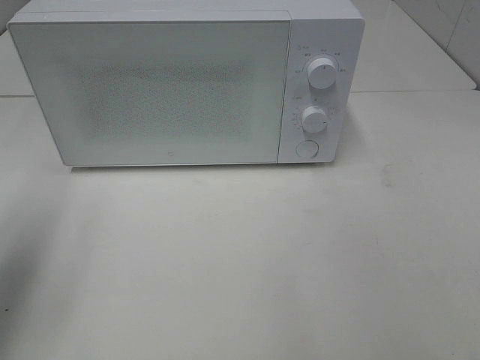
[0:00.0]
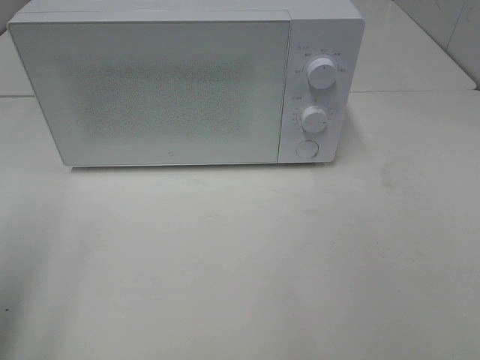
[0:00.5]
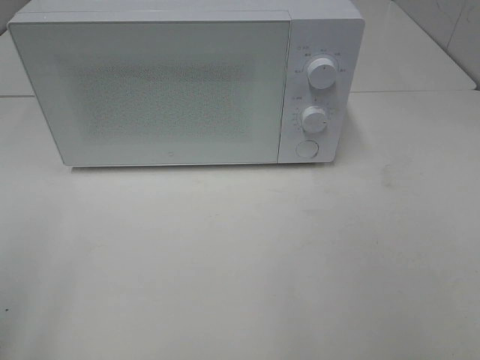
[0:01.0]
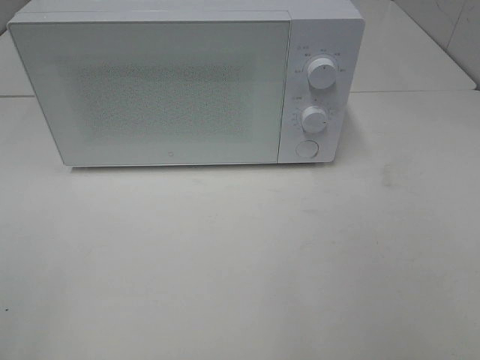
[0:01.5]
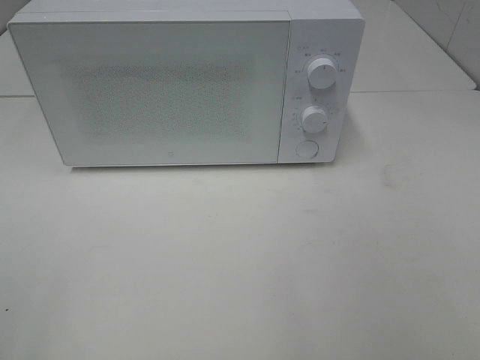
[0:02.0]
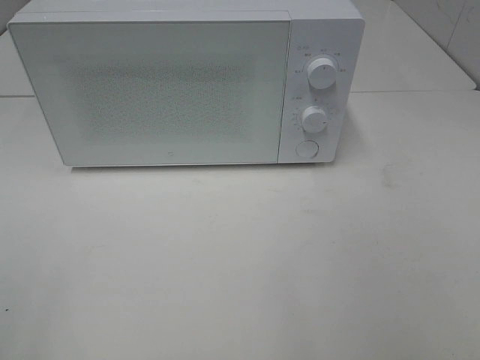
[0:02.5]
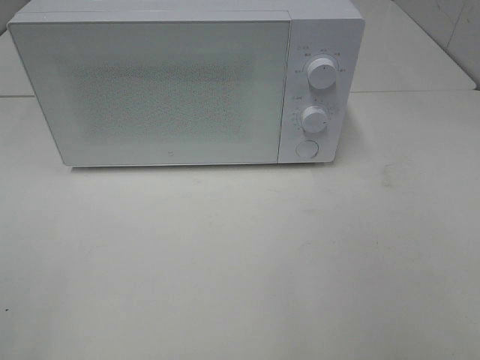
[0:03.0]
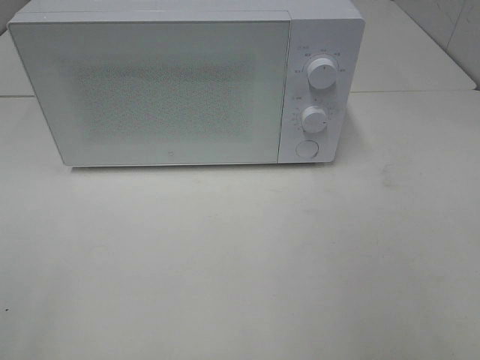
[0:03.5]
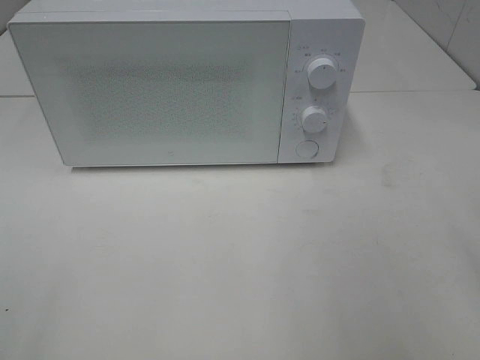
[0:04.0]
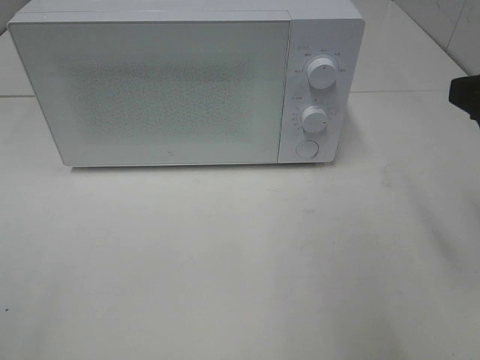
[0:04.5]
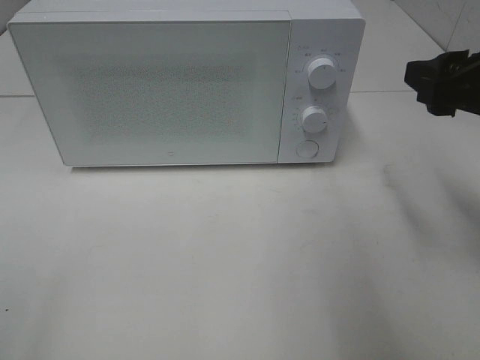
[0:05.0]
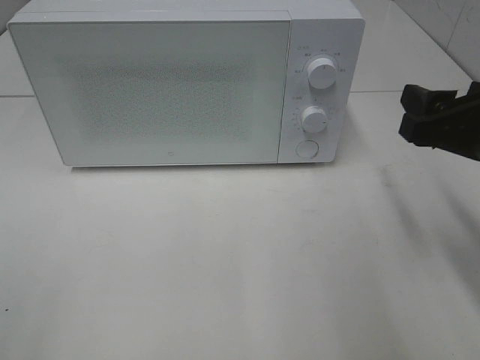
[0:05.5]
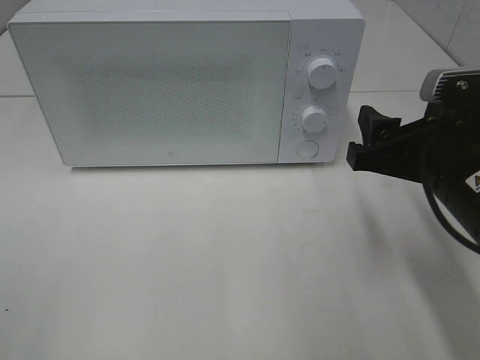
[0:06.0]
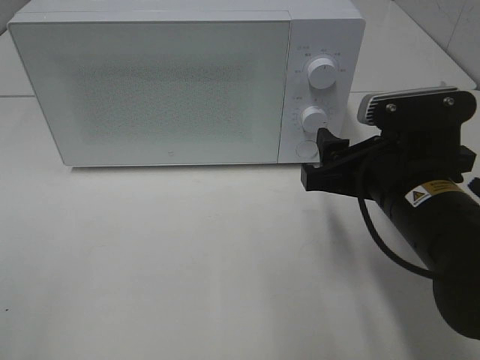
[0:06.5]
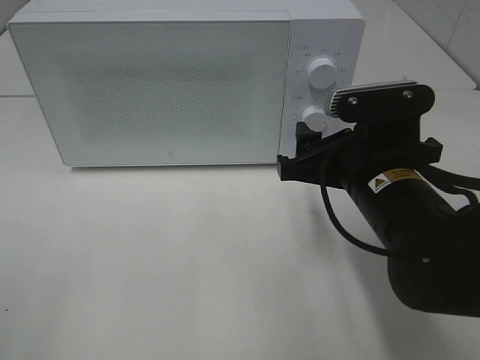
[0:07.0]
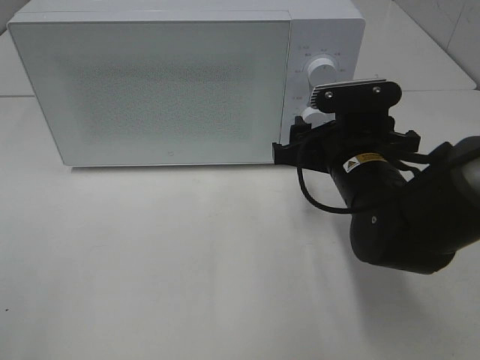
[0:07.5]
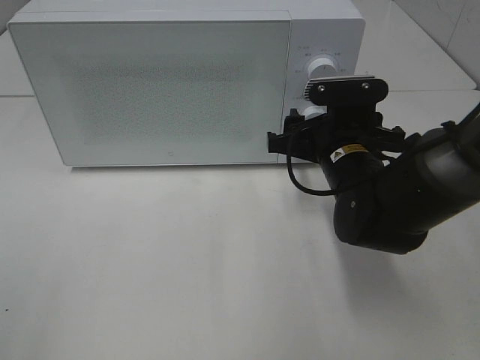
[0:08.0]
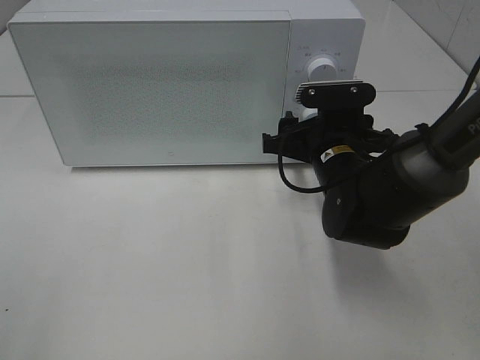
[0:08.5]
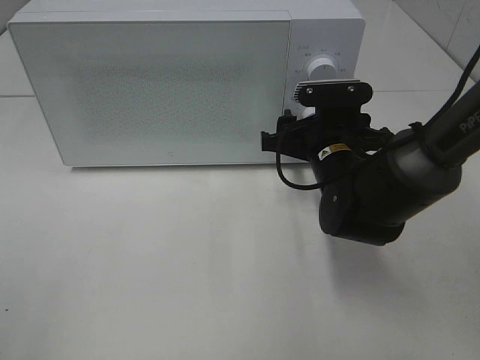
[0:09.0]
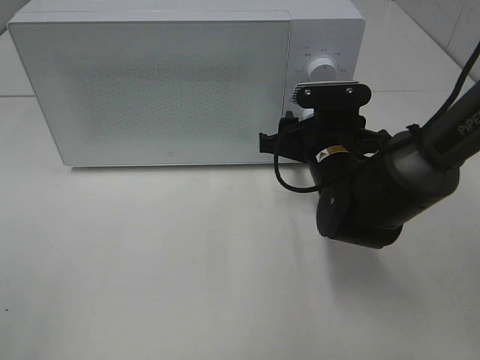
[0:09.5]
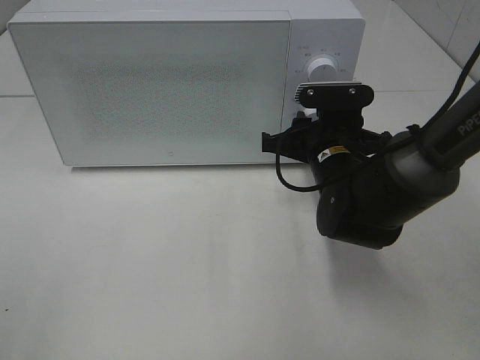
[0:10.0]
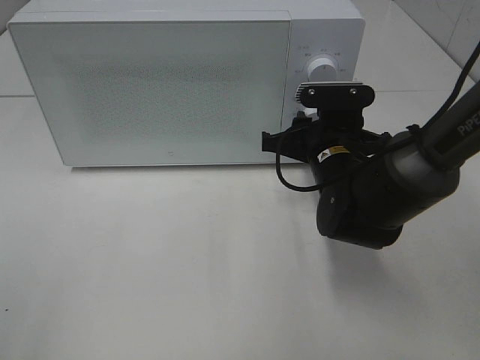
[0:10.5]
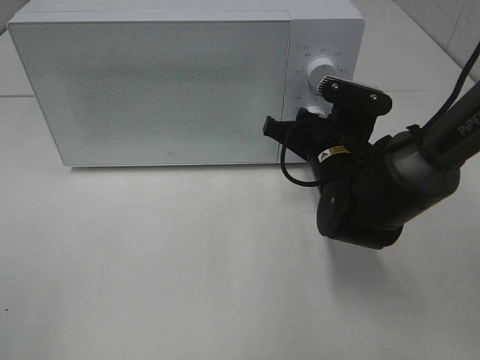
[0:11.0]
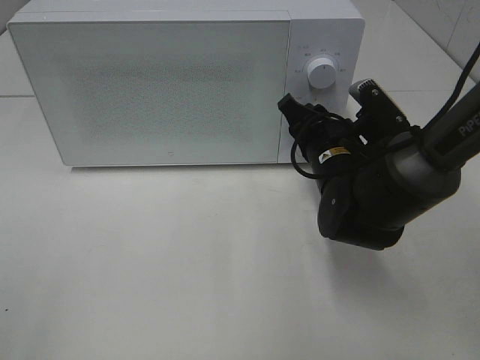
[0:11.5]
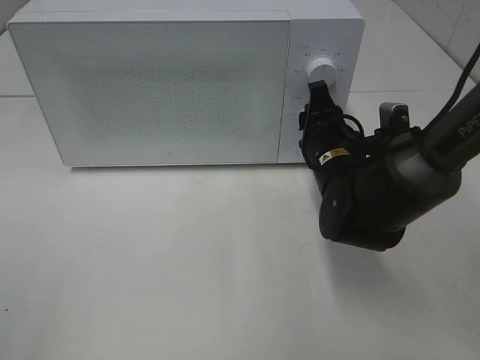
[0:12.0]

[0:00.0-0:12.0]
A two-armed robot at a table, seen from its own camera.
Task of the whole recording: Heat the burger.
0:00.0 to 0:02.0: The left gripper goes roughly 20 cm backward.
0:04.0 to 0:06.0: The right gripper shifts roughly 15 cm downward, forward and to the left.
0:06.0 to 0:08.0: The right gripper goes about 15 cm forward, to the left and downward.
0:08.0 to 0:10.0: The right gripper closes its fingers.

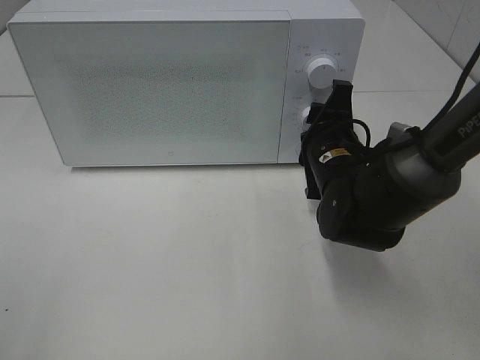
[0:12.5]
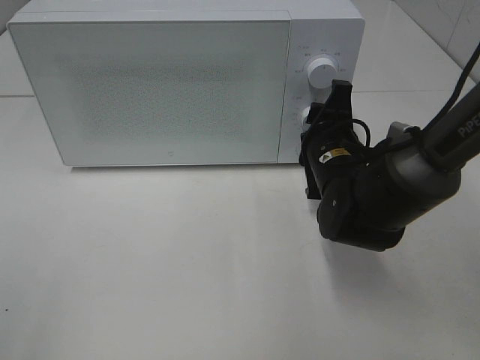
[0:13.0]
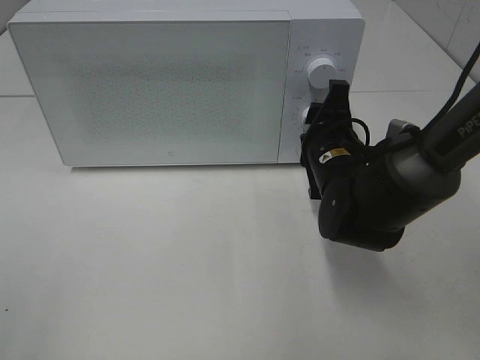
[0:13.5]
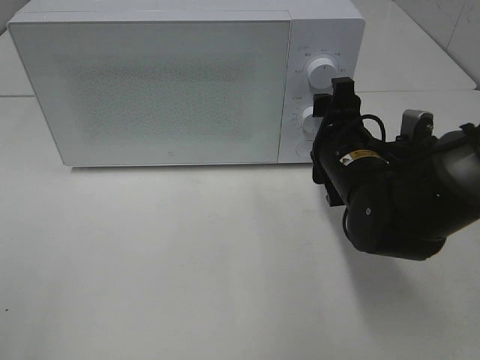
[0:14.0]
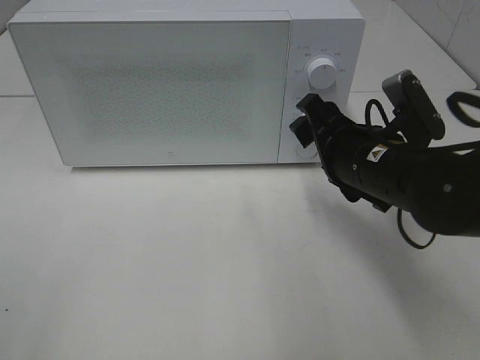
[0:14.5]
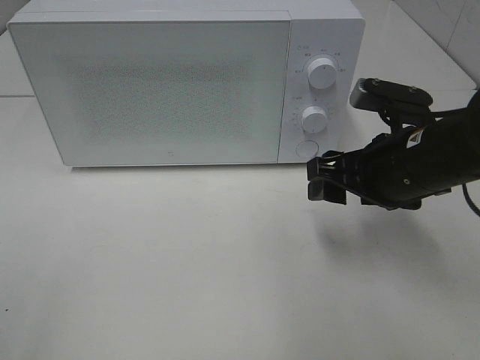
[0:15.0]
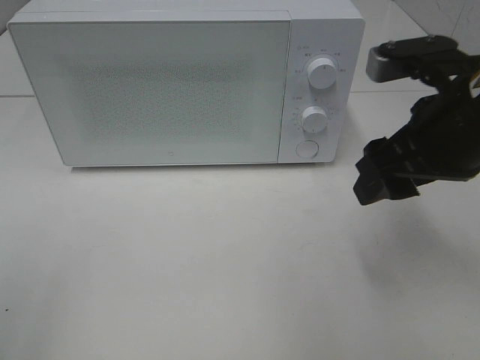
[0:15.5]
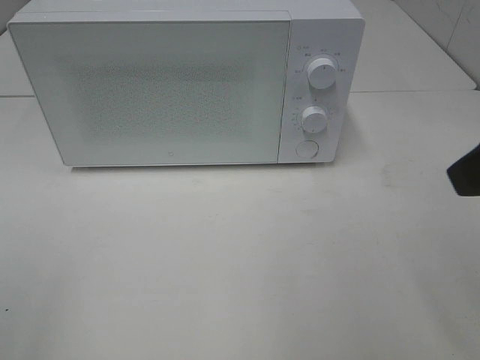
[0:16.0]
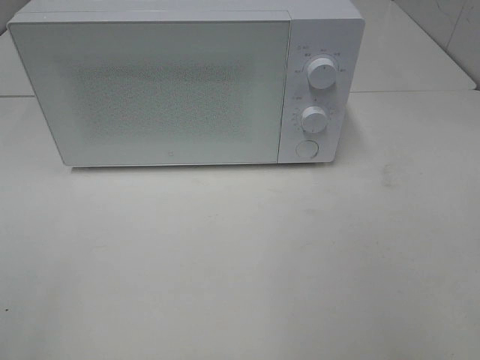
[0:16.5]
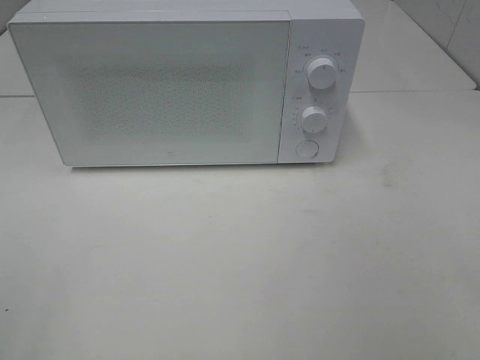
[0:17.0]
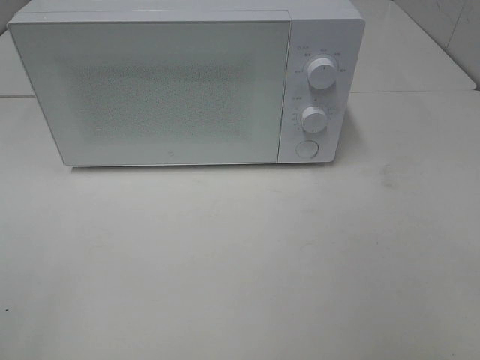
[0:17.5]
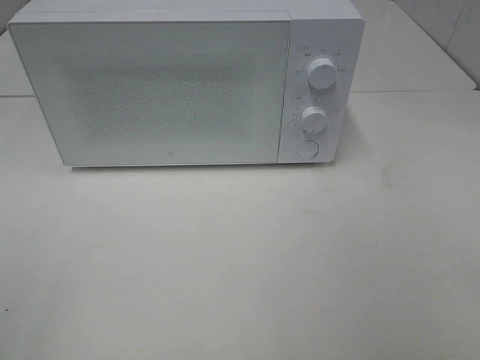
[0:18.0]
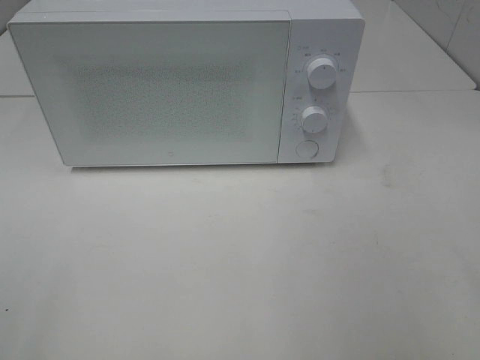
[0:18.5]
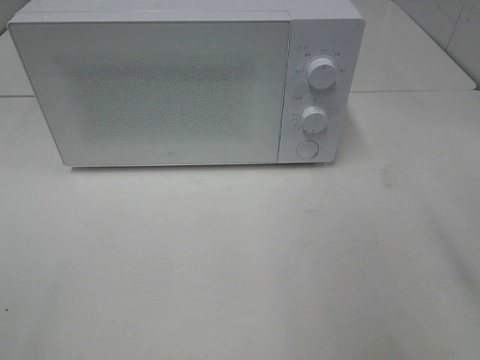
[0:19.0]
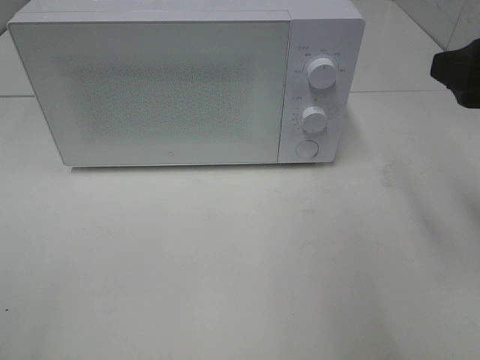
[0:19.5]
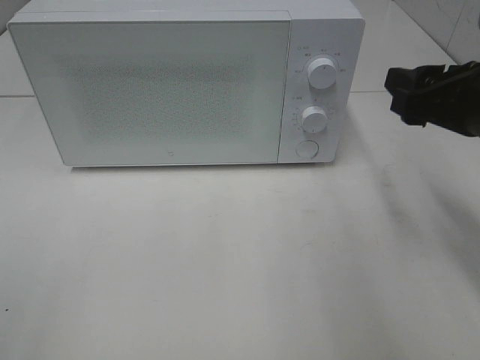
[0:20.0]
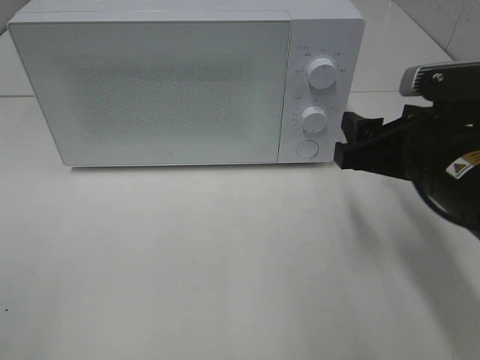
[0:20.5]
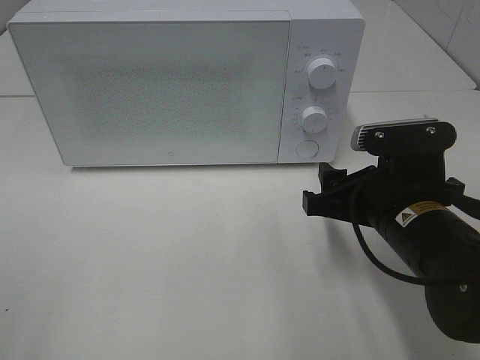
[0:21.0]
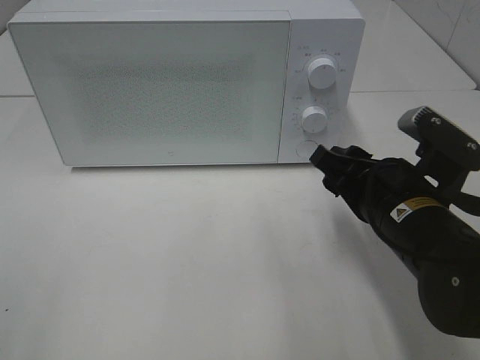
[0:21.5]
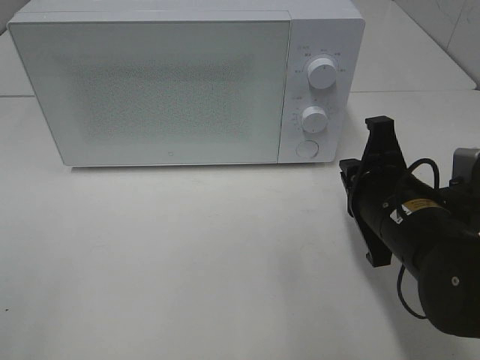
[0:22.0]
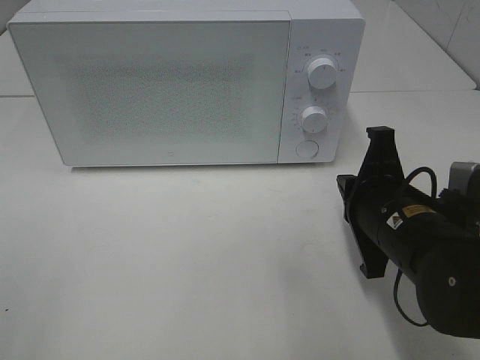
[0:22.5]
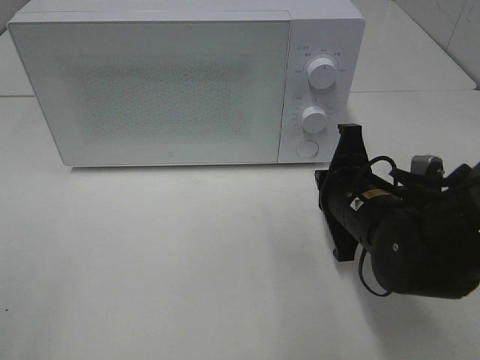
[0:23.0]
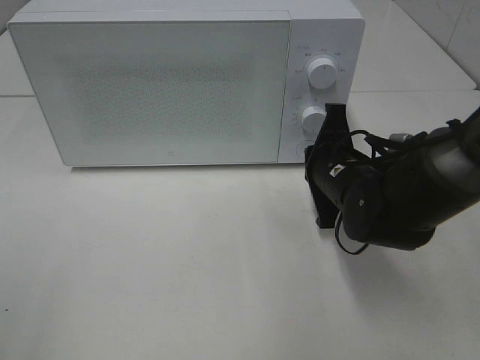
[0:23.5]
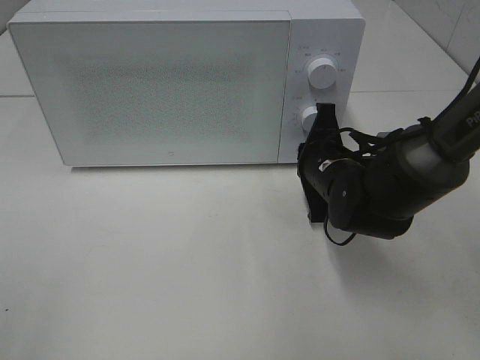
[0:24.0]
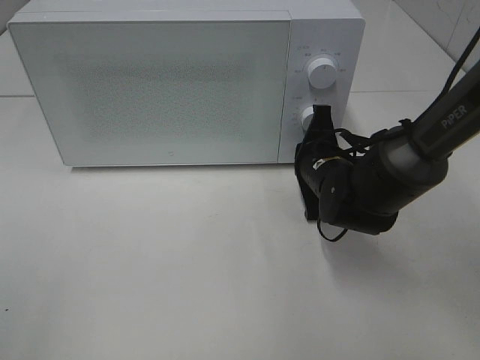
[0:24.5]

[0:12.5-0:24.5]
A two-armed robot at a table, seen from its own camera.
Task of the whole recording: Heat the burger.
0:12.5 to 0:14.5: The right gripper shifts some 5 cm backward.
0:14.5 to 0:16.5: The right gripper heads backward, upward and to the right, covering roughly 30 cm.
0:18.5 to 0:20.5: The right gripper is displaced forward, downward and to the left by about 20 cm.
0:20.5 to 0:22.5: The right gripper shifts roughly 5 cm downward, and closes.
0:22.5 to 0:24.5: The right gripper heads forward, covering roughly 15 cm.

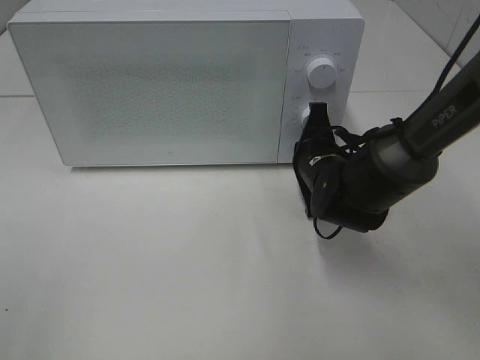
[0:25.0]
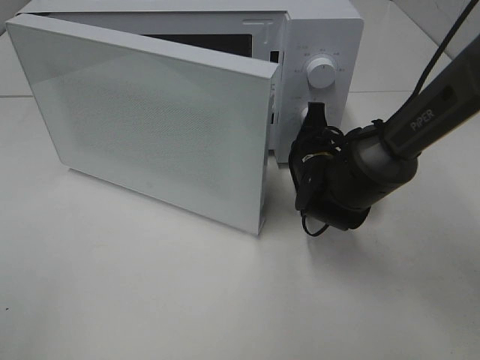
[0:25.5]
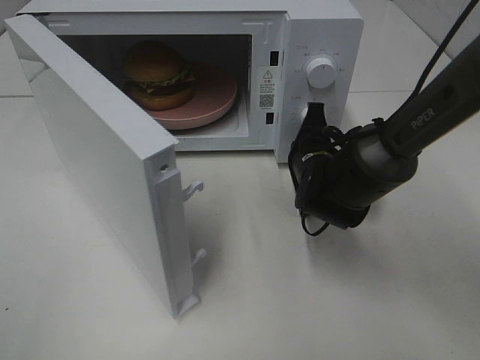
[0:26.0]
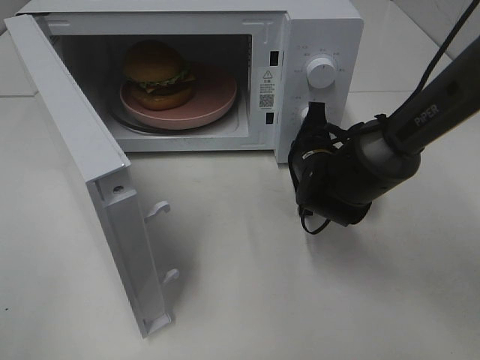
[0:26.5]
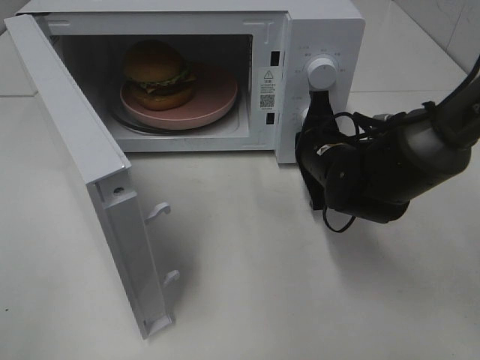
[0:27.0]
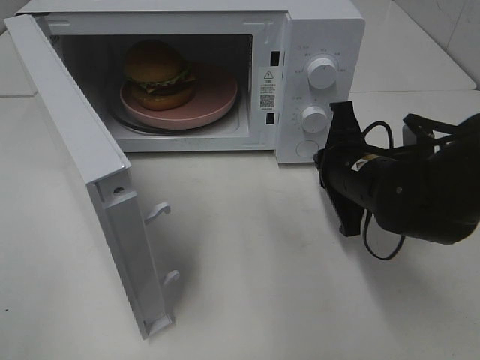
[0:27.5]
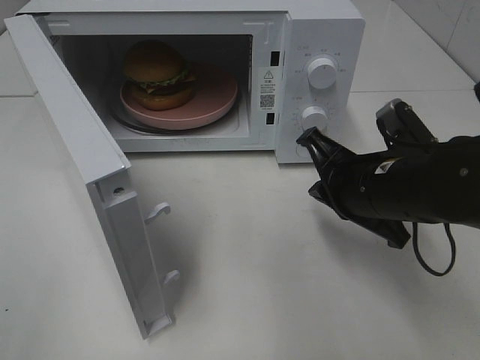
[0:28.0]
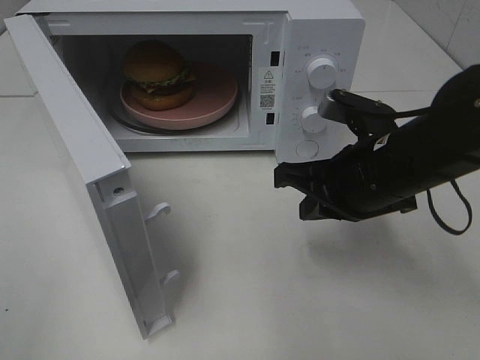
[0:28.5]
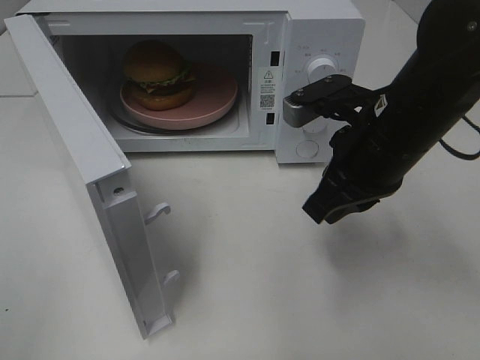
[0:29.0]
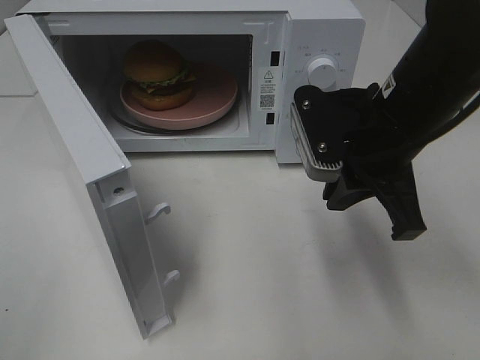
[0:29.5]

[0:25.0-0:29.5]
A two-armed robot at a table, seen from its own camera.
Task of the whole recording: Heat the burger.
Step, 0:25.0 to 0:27.0: Right hand: press the switch.
0:27.0 to 0:29.5: The right gripper is displaced upward and backward by approximately 15 cm.
